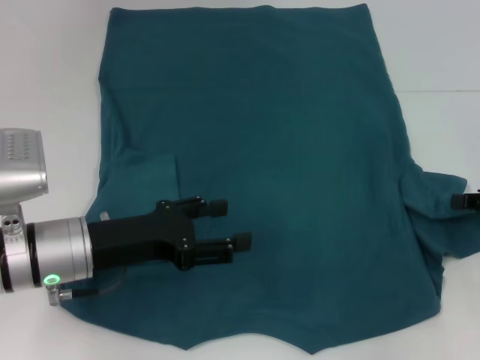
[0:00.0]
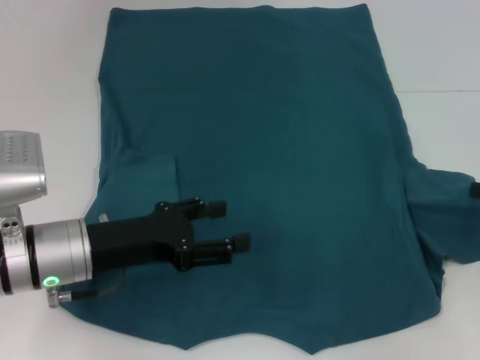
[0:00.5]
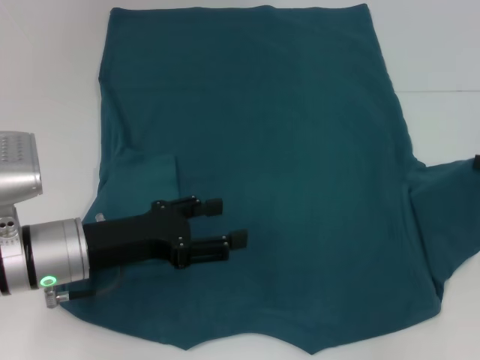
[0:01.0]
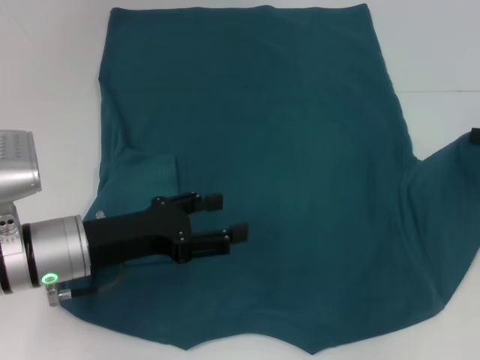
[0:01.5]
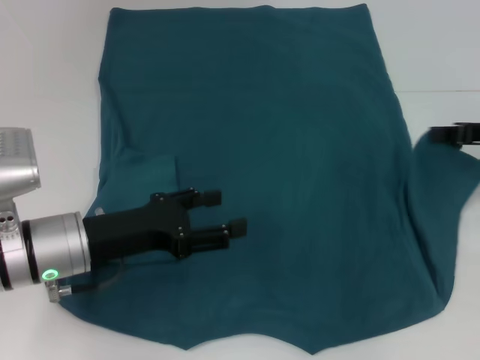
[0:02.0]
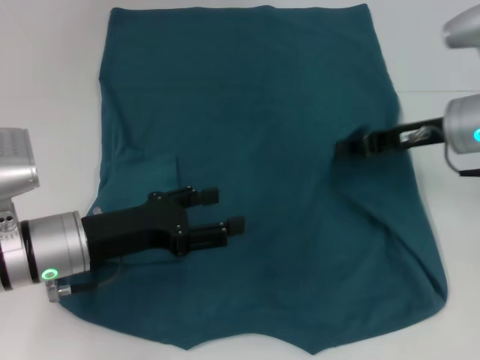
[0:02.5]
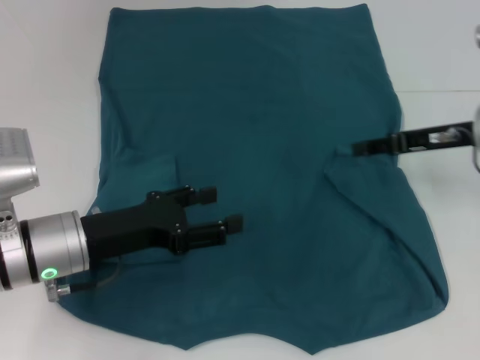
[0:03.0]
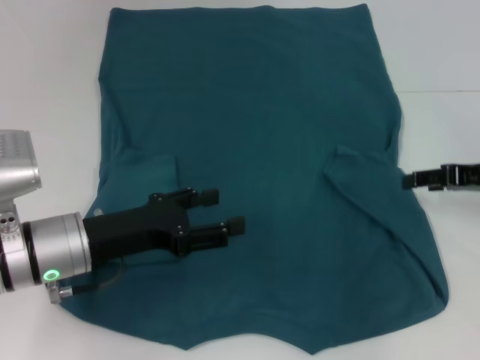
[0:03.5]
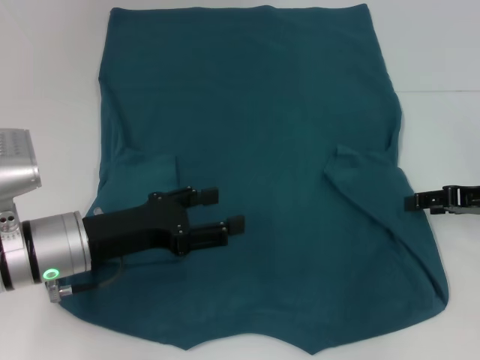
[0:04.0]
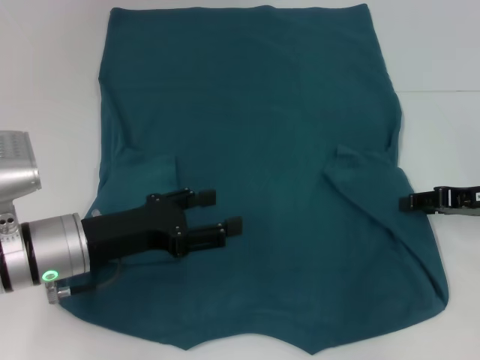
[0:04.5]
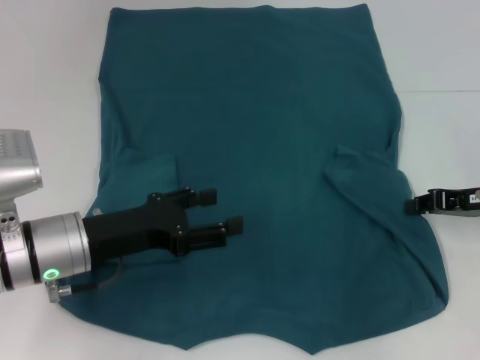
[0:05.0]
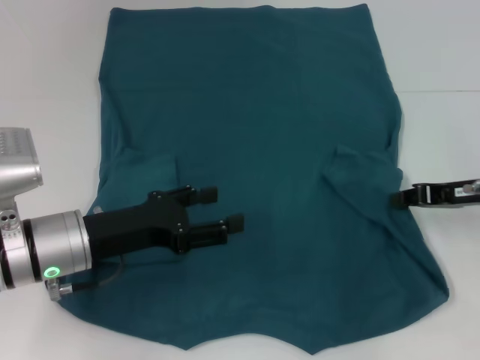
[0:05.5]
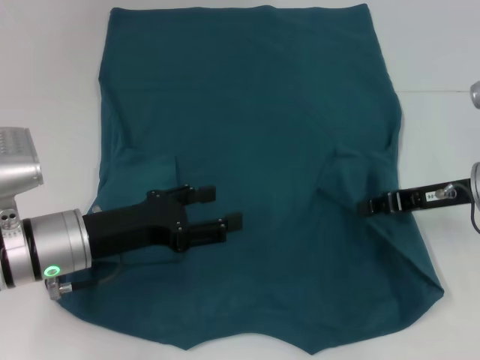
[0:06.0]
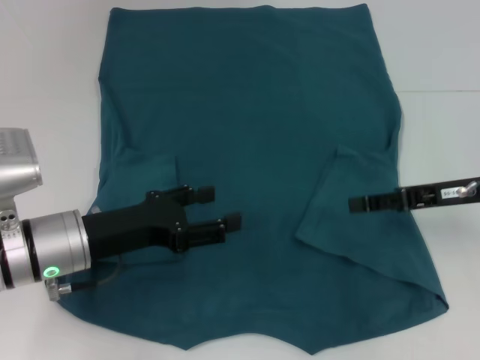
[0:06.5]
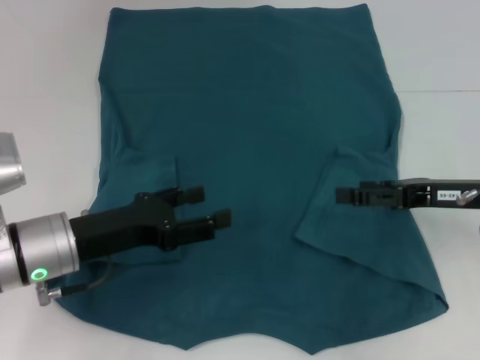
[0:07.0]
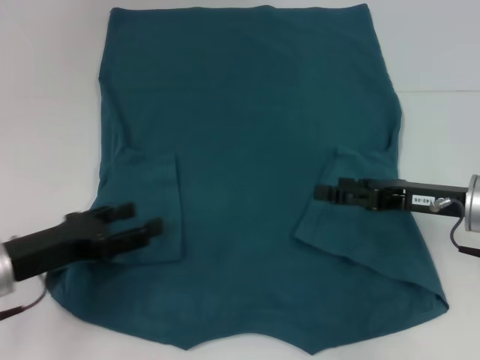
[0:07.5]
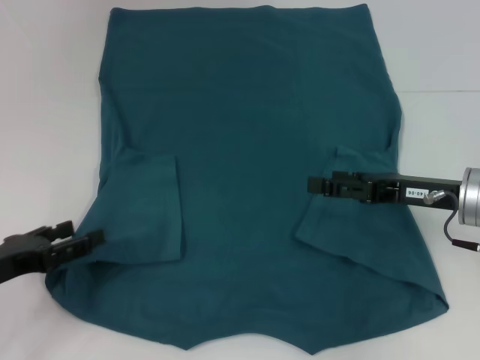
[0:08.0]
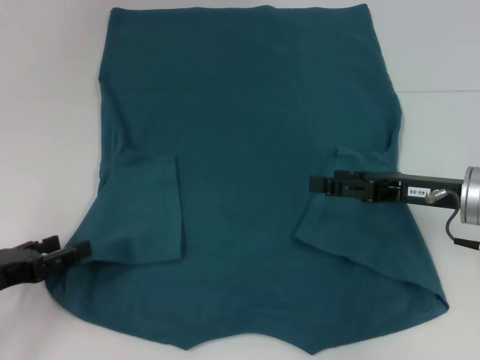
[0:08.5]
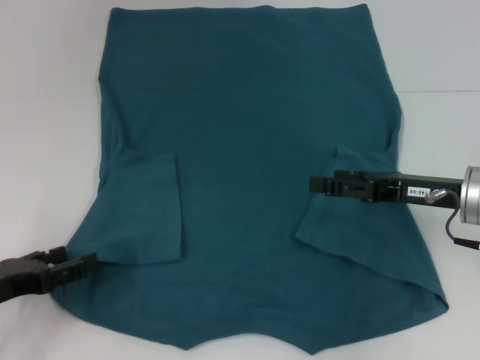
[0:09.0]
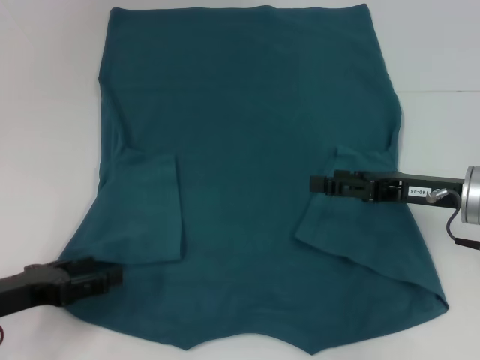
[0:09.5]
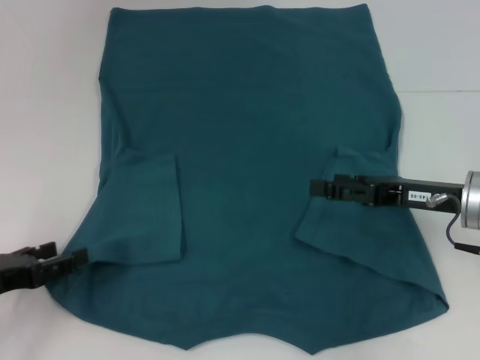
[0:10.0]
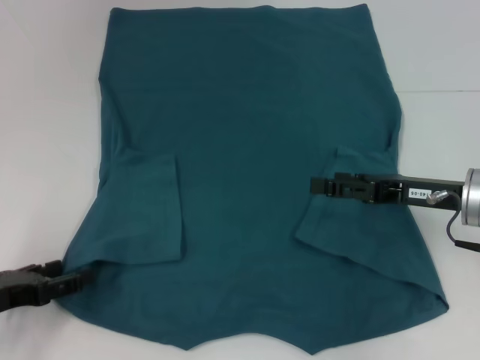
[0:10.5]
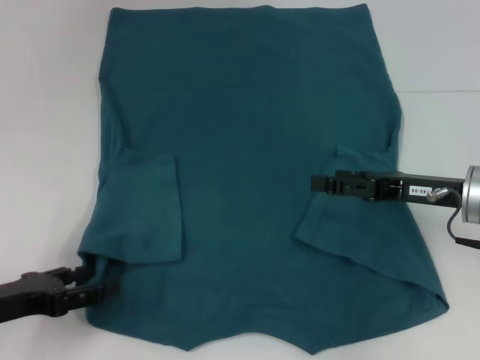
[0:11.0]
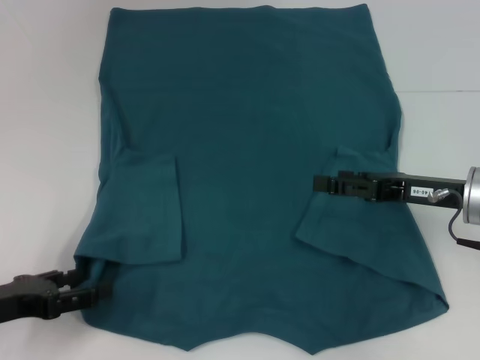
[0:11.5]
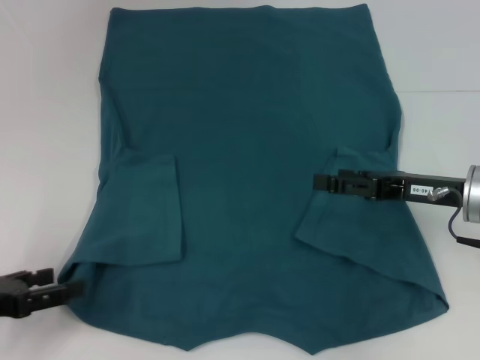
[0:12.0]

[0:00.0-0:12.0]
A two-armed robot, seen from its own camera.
Step, 0:00.0 to 0:06.0: Fold the bottom right sleeve to the right.
0:00.0 to 0:02.0: The right gripper is displaced forward by some 5 cm.
0:02.0 to 0:04.0: The right gripper reaches about 10 cm to the left, then returns, and opens up.
0:04.0 to 0:06.0: The right gripper travels to the left by approximately 5 cm, and closes.
0:06.0 to 0:08.0: The right gripper opens up. Meanwhile the left gripper shifts about 10 cm to the left and backward.
0:08.0 to 0:12.0: There are only small adjustments of the grippers.

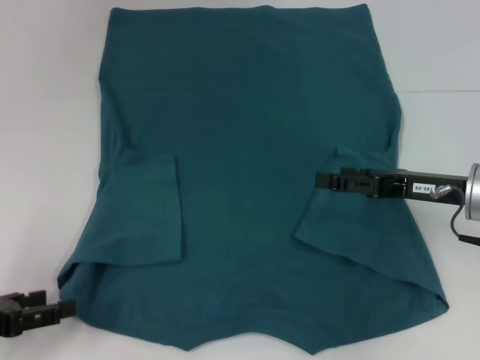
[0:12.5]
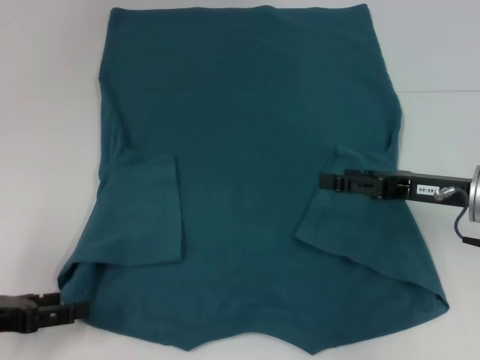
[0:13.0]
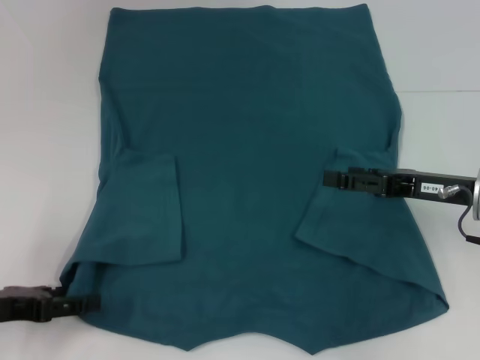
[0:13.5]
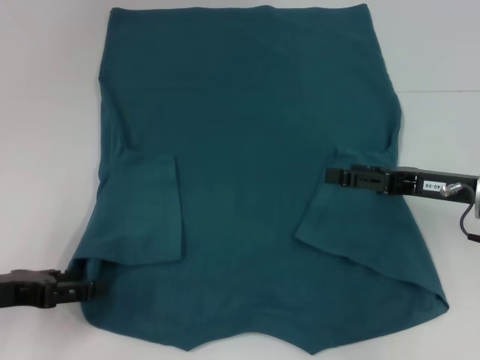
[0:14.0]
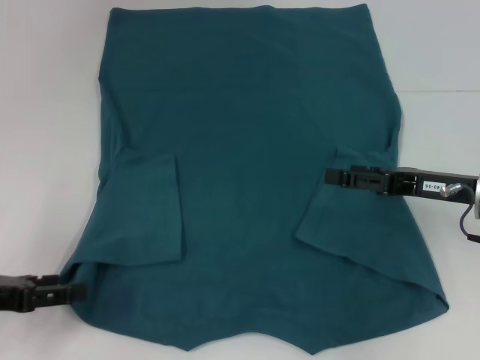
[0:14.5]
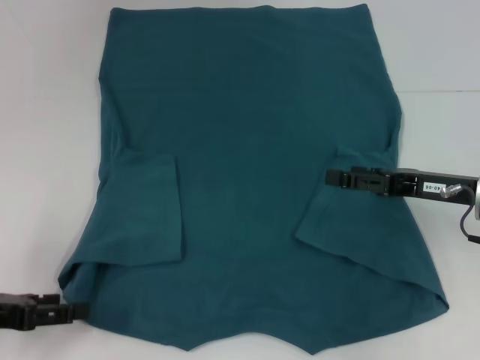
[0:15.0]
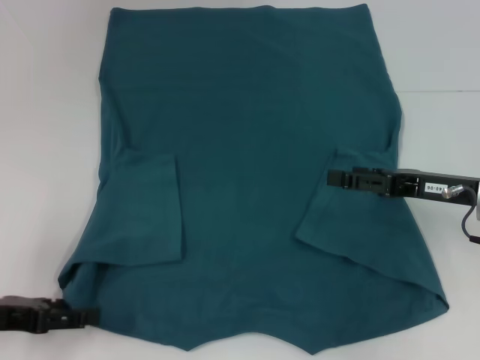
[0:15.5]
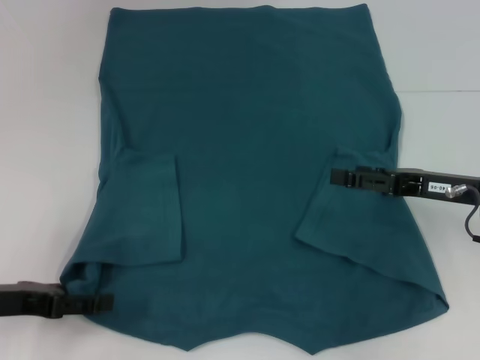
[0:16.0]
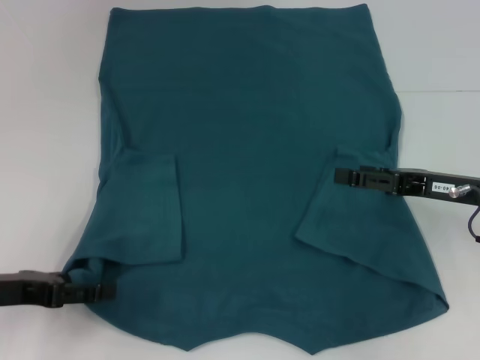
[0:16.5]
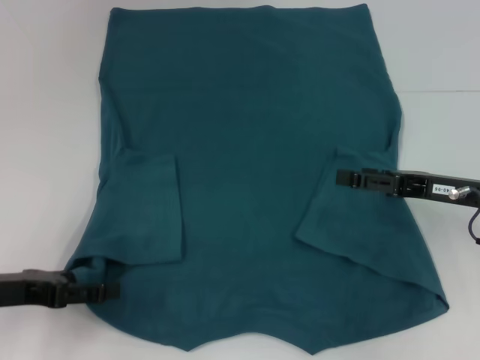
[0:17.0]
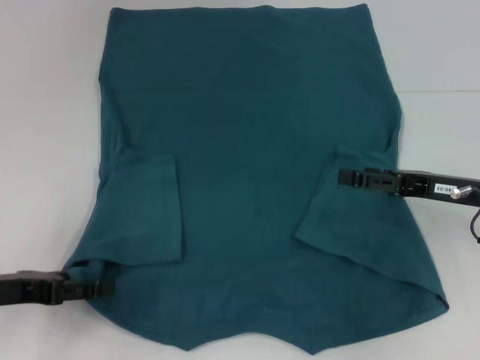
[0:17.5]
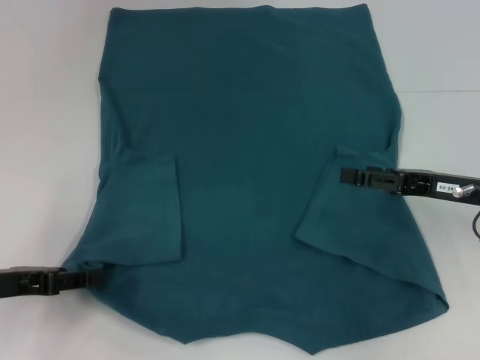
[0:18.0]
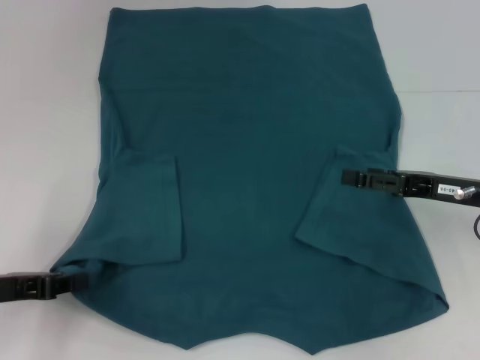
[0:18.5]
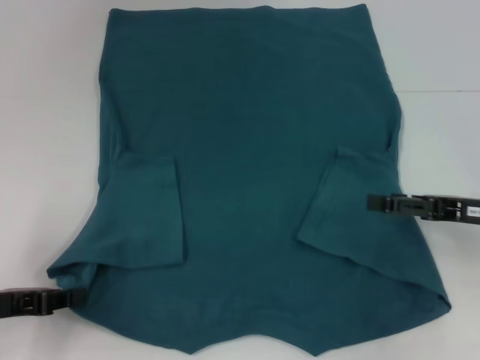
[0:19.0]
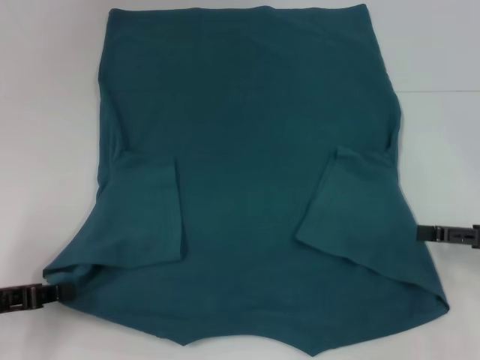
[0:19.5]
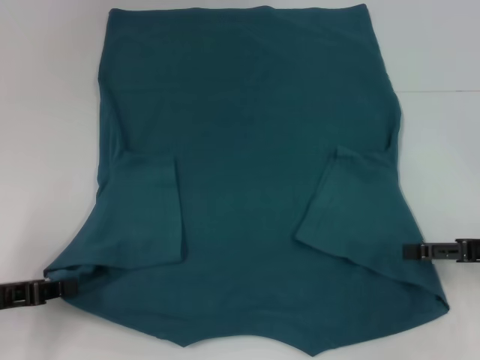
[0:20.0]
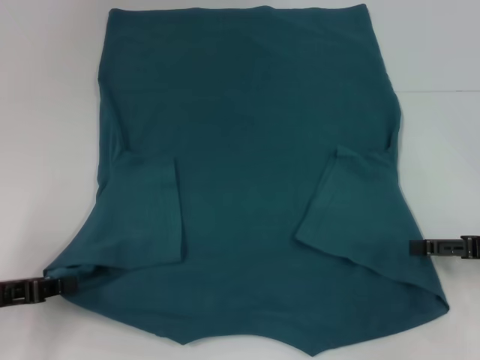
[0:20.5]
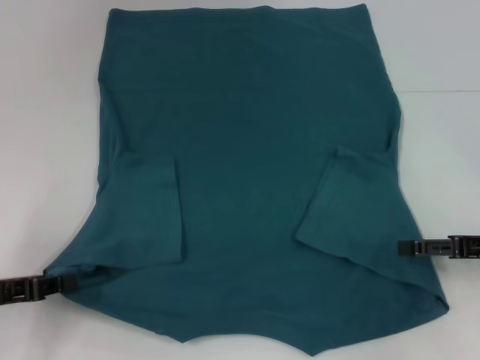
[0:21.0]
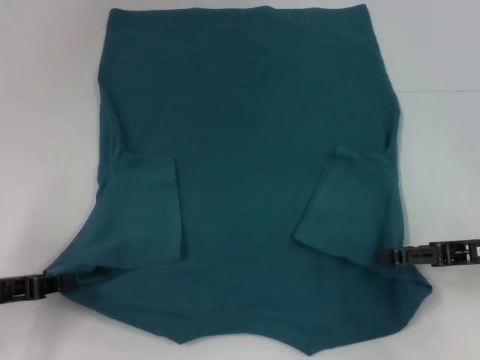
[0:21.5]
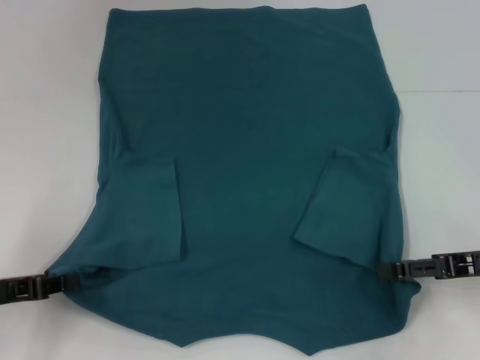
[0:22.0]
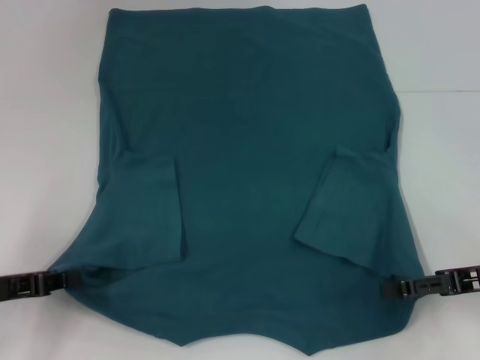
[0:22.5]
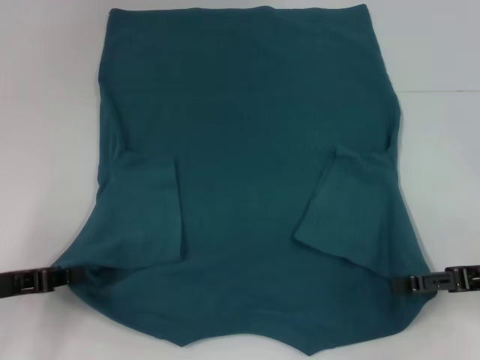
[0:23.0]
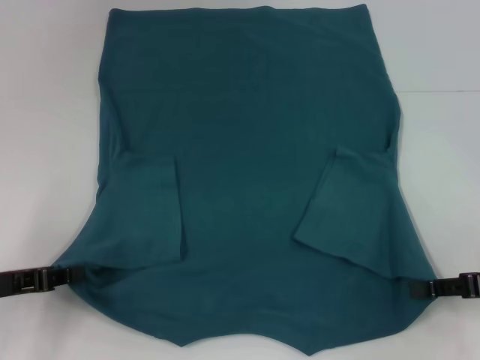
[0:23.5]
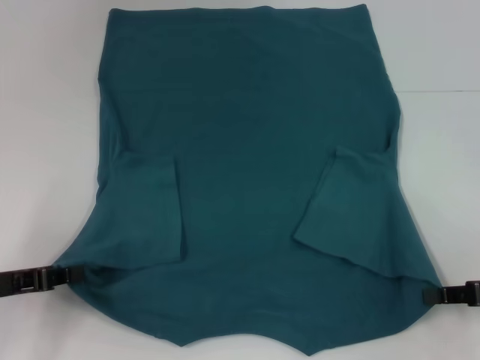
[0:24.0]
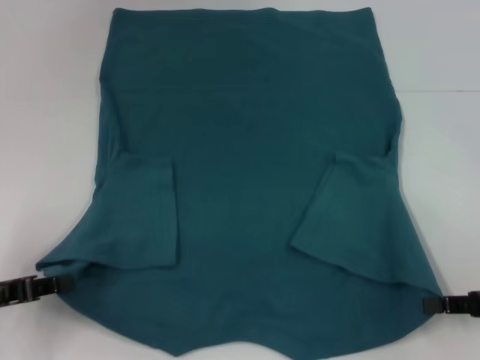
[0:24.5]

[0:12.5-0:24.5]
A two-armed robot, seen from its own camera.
Step, 0:12.5 to 0:19.0: Grab the bottom left corner with your left hand.
Step, 0:19.5 to 0:24.0: Grab the bottom right corner with your right hand.
0:12.5 to 0:16.5: The grippers stay close to where they were, moving slightly.
0:16.5 to 0:18.5: The left gripper closes up.
0:18.5 to 0:20.5: The right gripper travels to the right by roughly 5 cm.
0:20.5 to 0:22.5: The grippers move only a little.
0:22.5 to 0:24.5: The right gripper closes up.

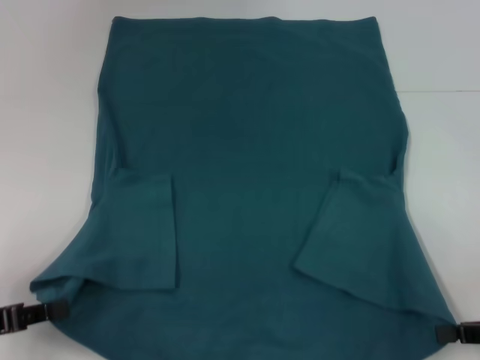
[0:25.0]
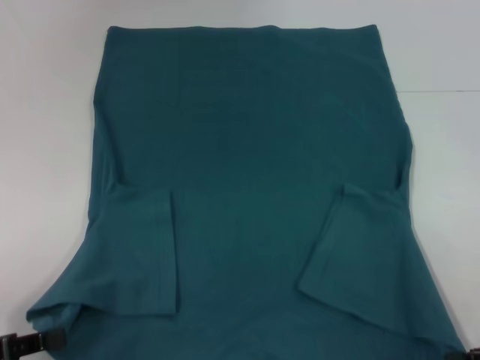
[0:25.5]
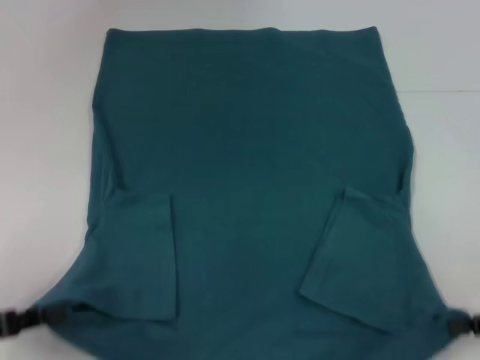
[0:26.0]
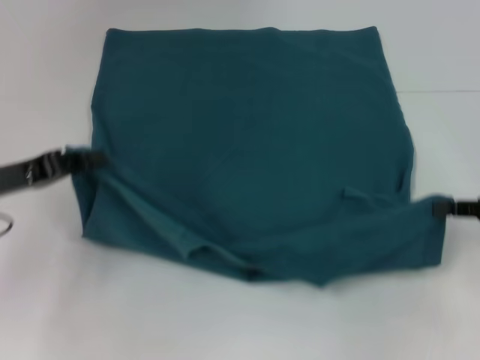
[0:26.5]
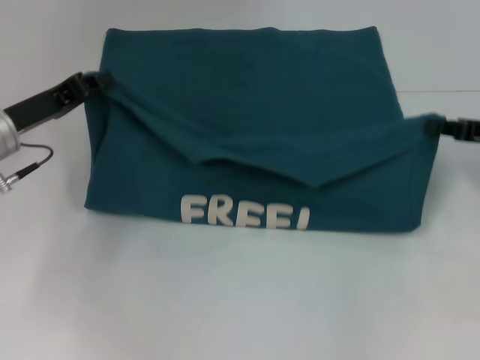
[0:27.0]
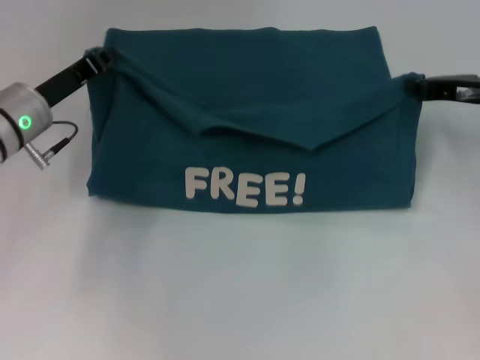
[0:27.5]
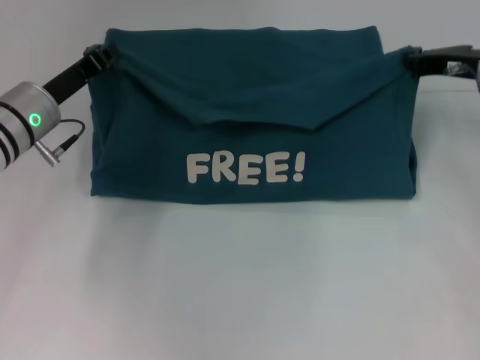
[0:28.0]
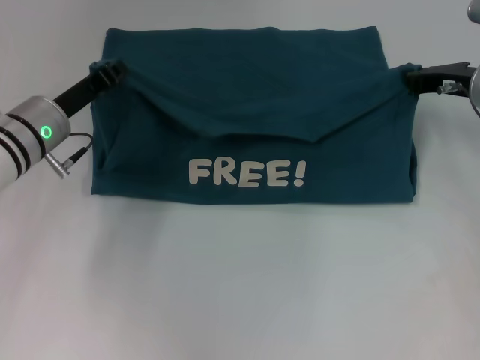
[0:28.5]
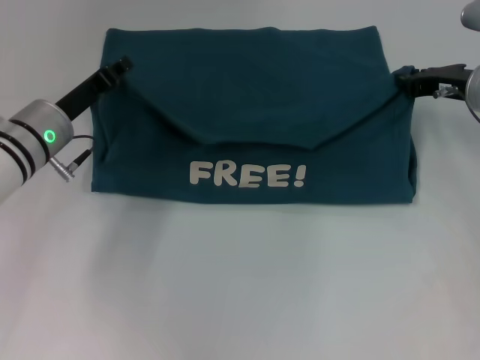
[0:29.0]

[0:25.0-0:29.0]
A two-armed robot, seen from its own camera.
0:25.0 to 0:27.0: The right gripper goes about 15 cm forward and upward. The left gripper goes roughly 15 cm forward.
0:27.0 to 0:29.0: The right gripper heads forward and to the left, covering about 10 cm, while the left gripper shifts about 5 cm to the right.
